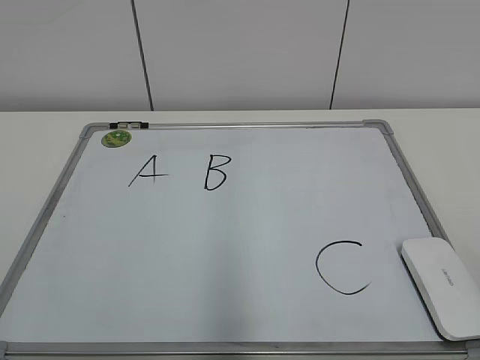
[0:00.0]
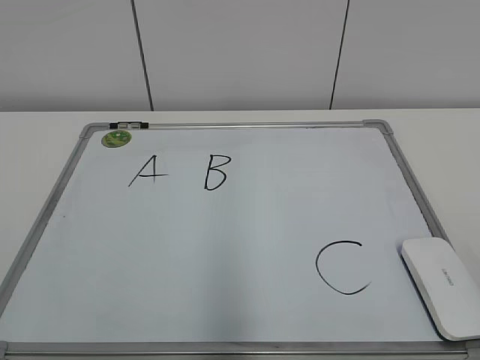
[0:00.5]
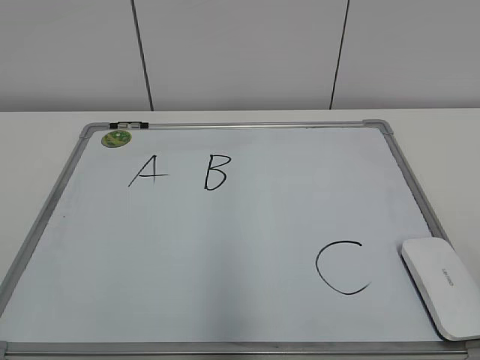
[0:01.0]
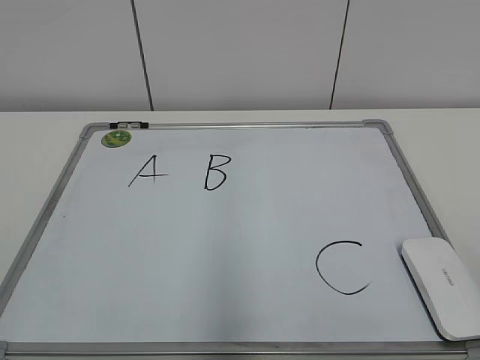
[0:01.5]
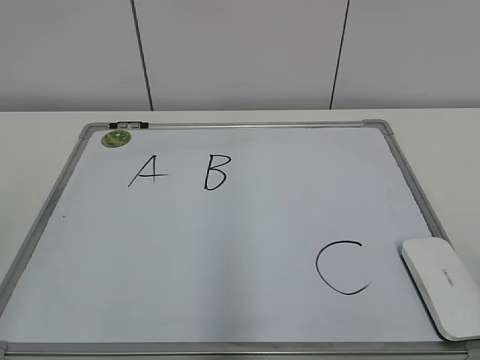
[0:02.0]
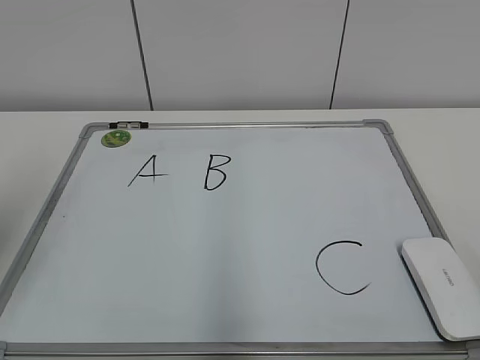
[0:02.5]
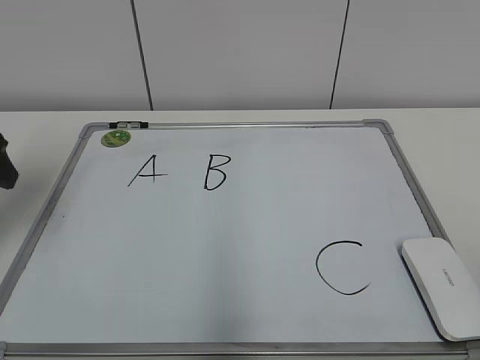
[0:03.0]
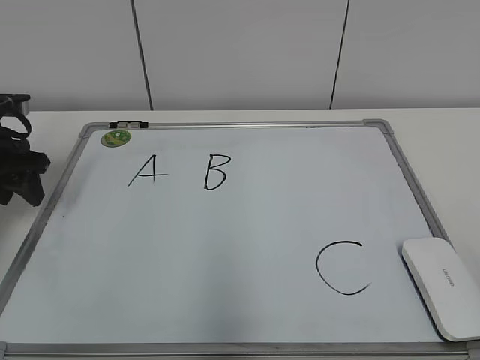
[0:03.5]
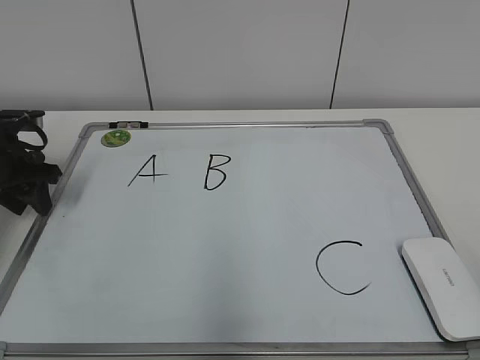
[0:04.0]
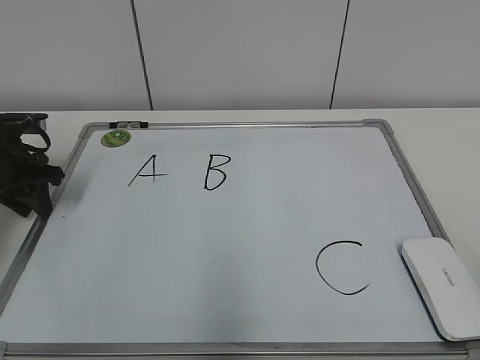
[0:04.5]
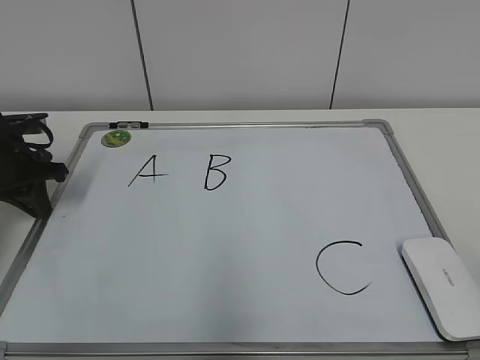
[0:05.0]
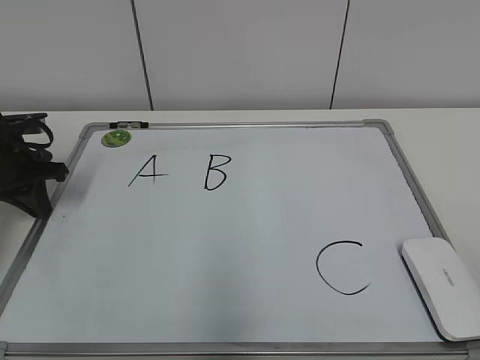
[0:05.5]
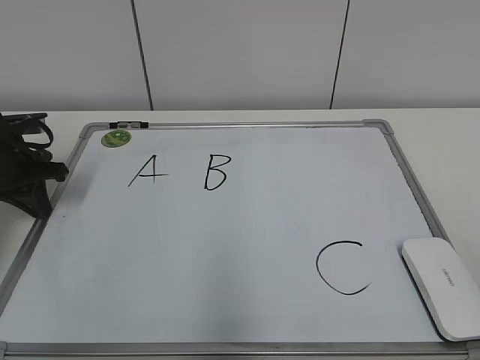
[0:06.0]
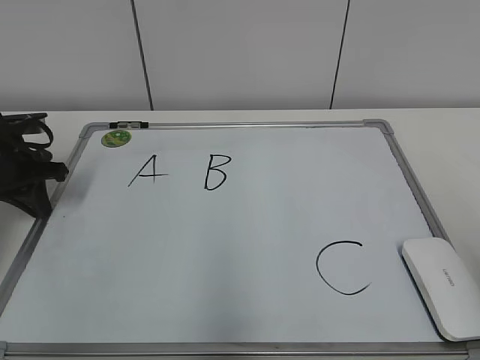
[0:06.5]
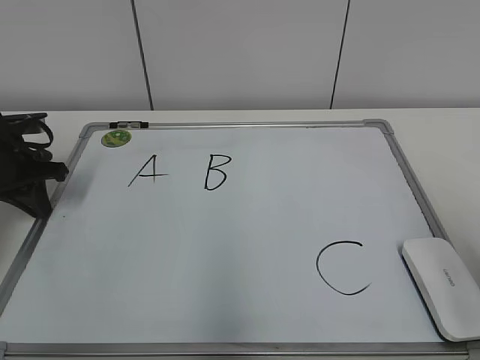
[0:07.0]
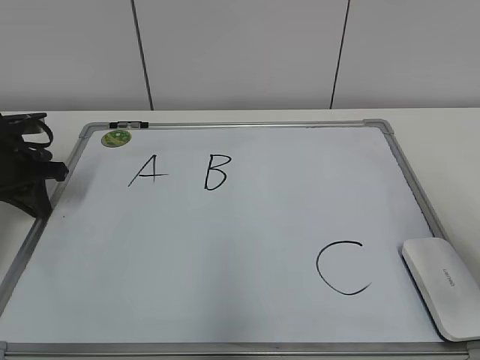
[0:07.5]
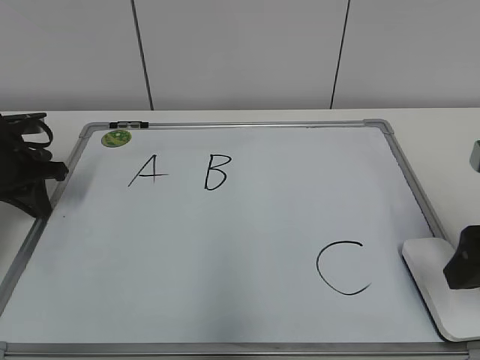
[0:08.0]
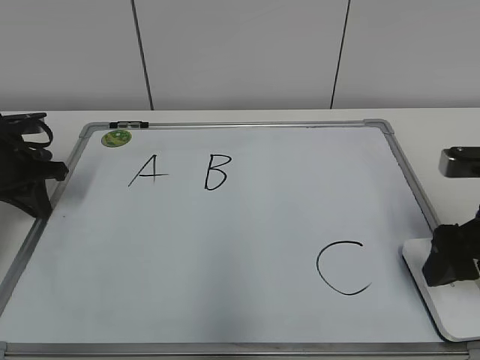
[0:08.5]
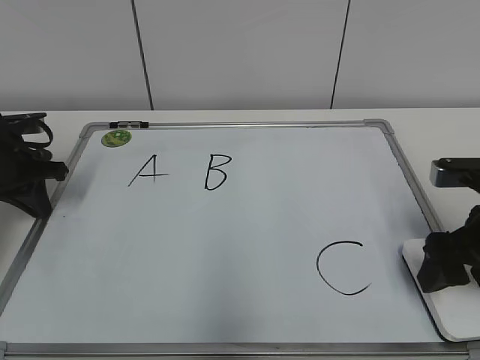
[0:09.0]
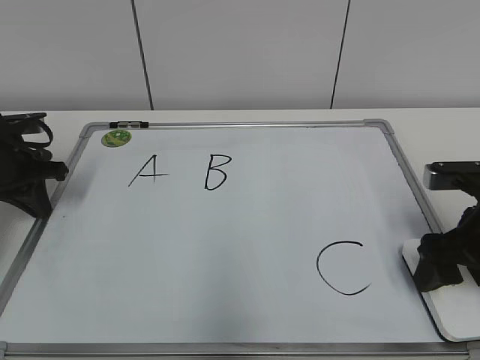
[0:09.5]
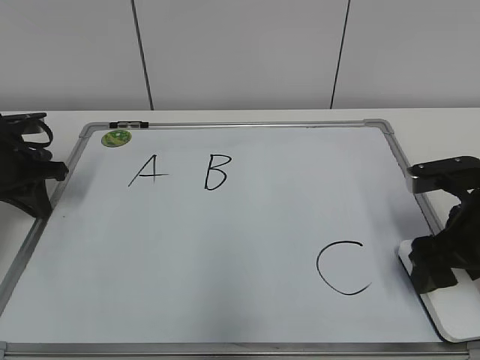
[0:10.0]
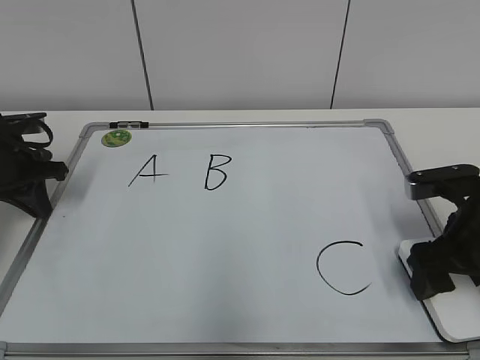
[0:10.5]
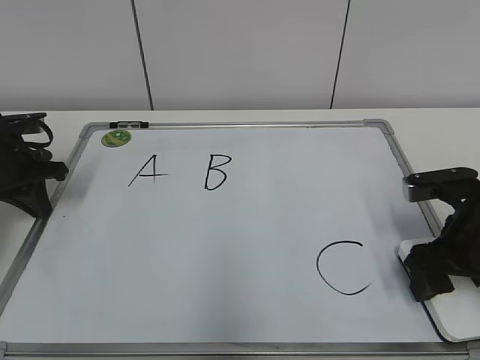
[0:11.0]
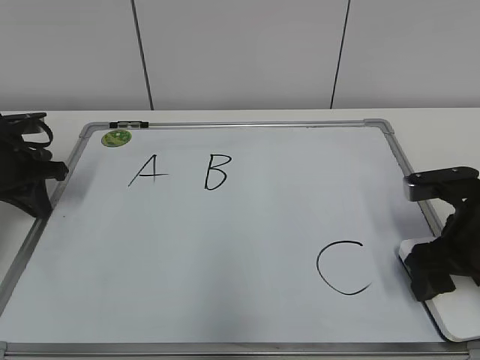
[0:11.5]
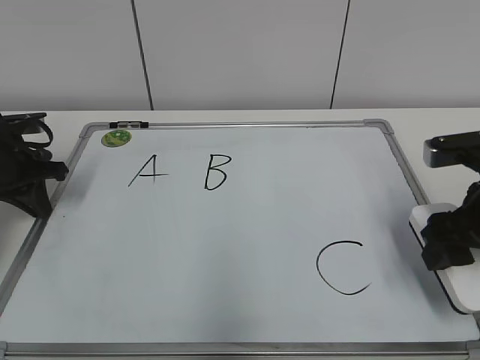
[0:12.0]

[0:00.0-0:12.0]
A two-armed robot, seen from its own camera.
Task of the whole recording: pick up the eraser on the blackboard and erase the letter "B".
Step, 0:00.0 to 0:04.5: Hold the drawing board steady with your left hand.
Step, 0:05.0 to 0:11.0: Grab the eraser with your right hand.
0:02.0 to 0:04.0: The left gripper shifts some 40 cm forward and downward, and closes up.
0:04.0 to 0:06.0: The left gripper closes up.
0:06.0 to 0:08.0: The right gripper heads forward, covering approximately 20 cm, and opens up.
0:08.0 to 0:10.0: The right gripper travels downward and forward by some 10 cm.
0:10.0 to 0:12.0: The right gripper closes its fingers.

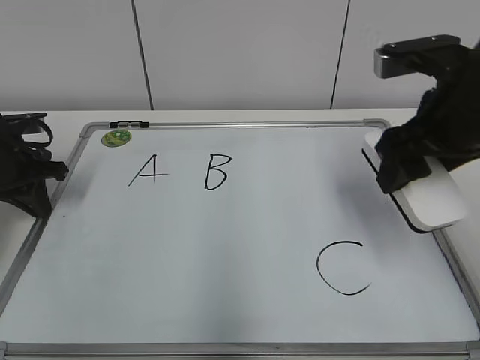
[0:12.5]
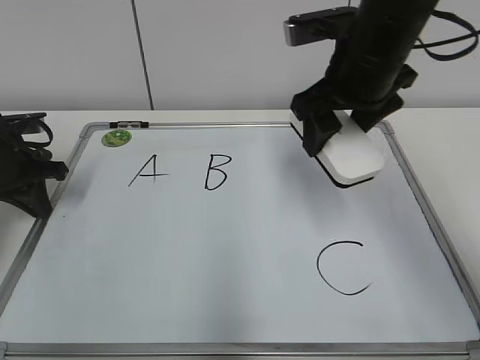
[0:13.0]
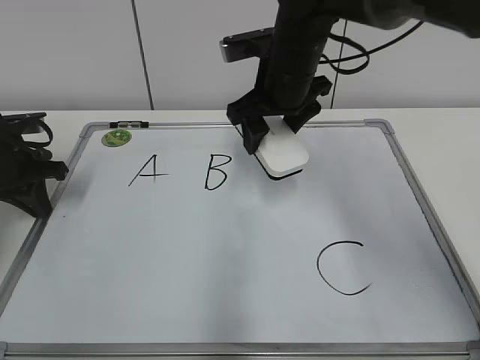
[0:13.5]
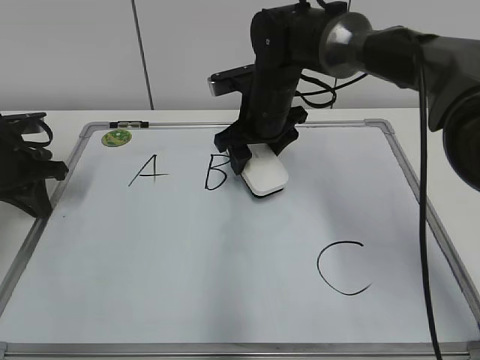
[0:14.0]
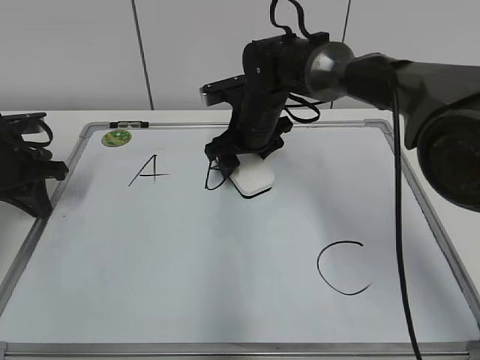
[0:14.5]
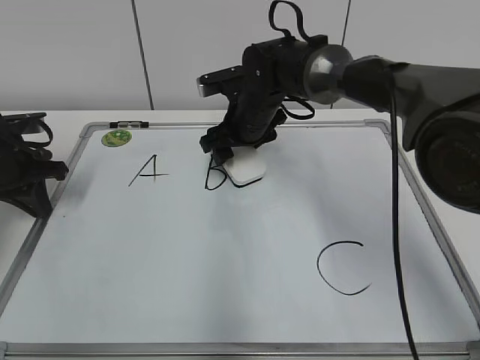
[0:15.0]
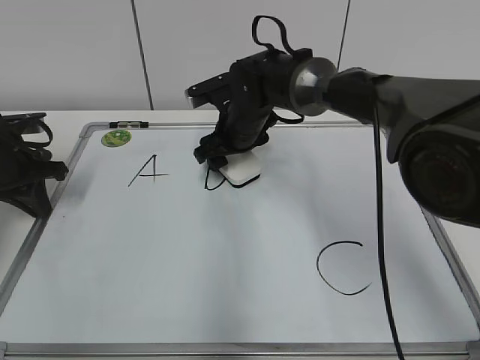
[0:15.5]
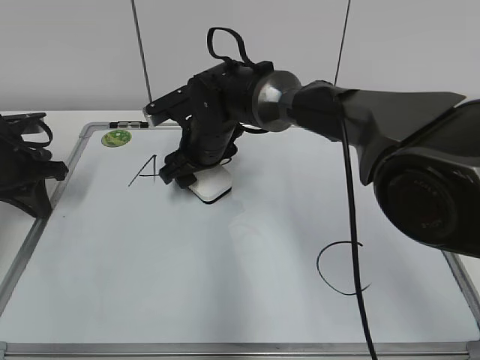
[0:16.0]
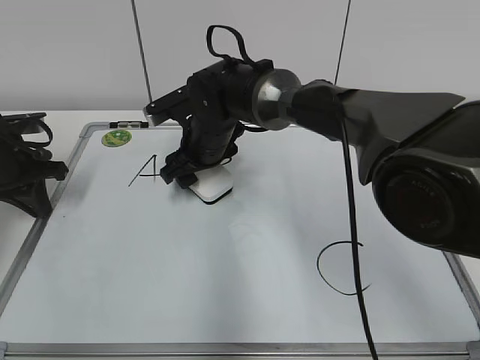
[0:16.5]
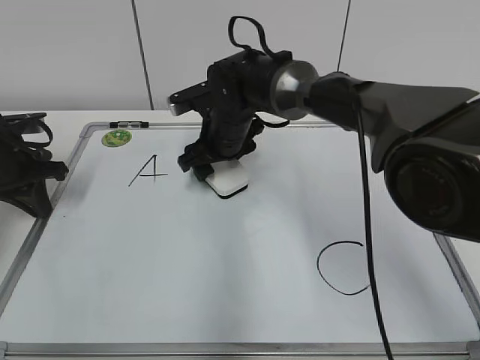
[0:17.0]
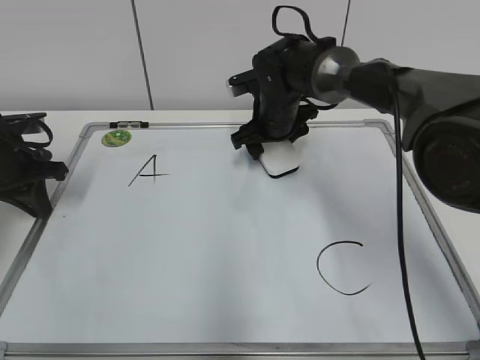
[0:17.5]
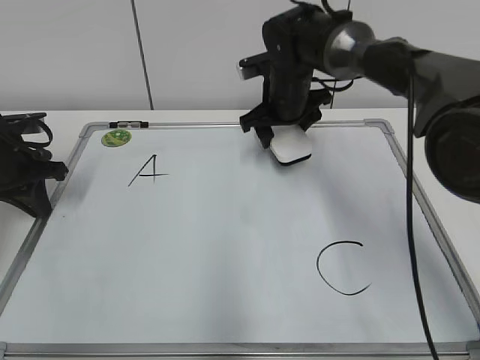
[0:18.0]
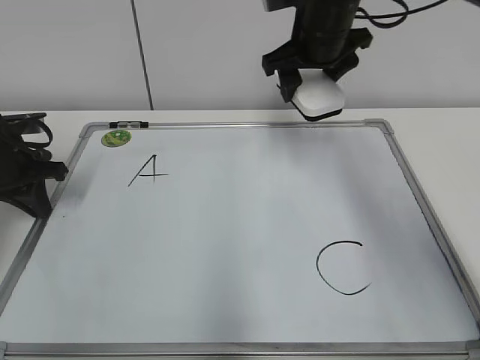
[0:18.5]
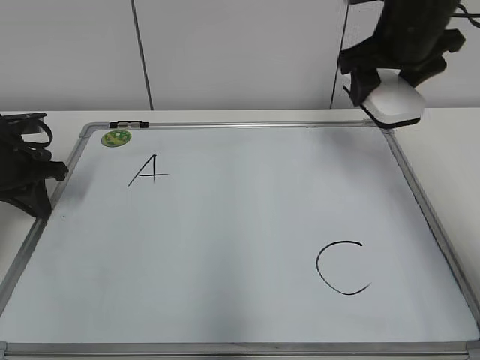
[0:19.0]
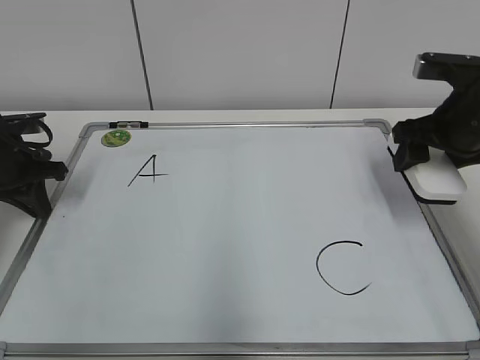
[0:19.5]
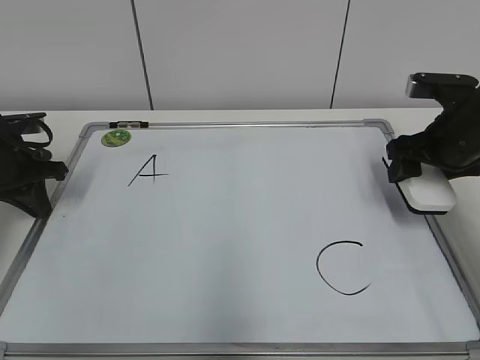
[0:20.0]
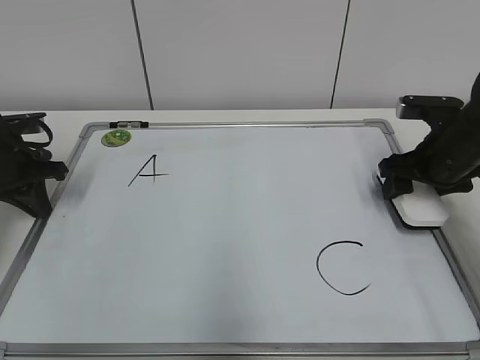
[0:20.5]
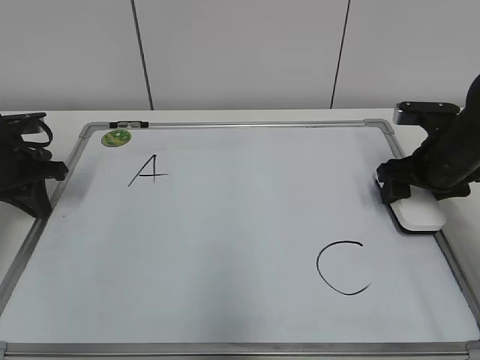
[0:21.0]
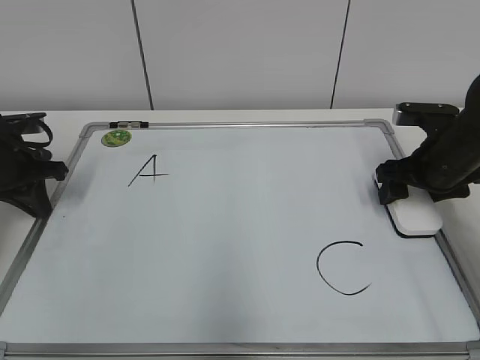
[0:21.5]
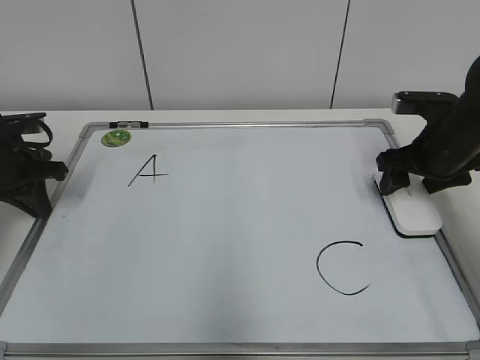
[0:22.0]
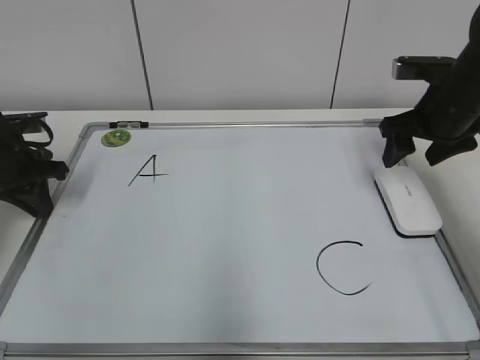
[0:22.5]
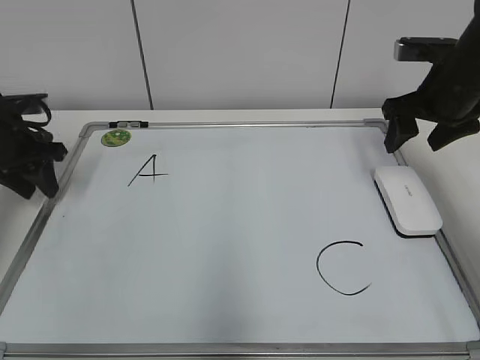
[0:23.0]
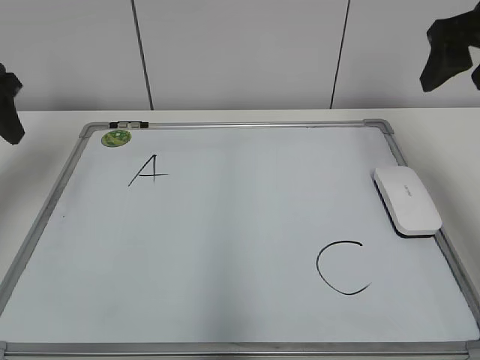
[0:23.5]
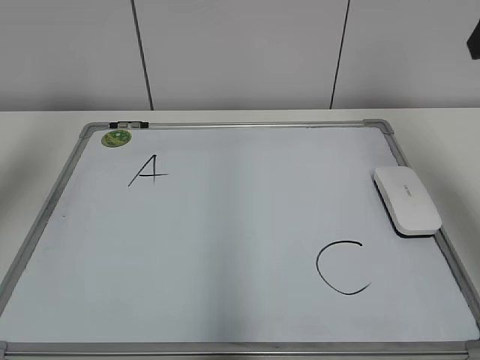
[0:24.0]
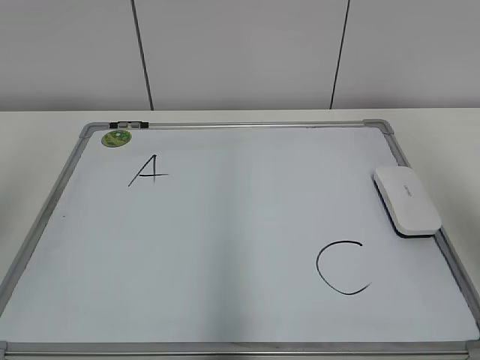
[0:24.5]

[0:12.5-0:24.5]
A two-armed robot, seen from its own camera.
Task of the whole recording: pick up the eraser on the blackboard and erase the letter "B".
Step, 0:12.5 to 0:17.5: Erase the letter B with your right hand.
Step, 0:18.0 to 0:22.0: Put down the eraser with your right hand.
0:12.5 to 0:14.5: The right gripper heads forward, to the left and downward, covering roughly 30 cm.
0:14.5 to 0:16.5: The right gripper goes about 5 cm to the left.
0:16.5 to 0:18.5: The right gripper moves upward and to the right, roughly 20 cm.
0:18.5 to 0:20.5: The right gripper shifts about 20 cm to the right, downward and backward.
0:20.5 to 0:22.5: The right gripper ends up roughly 5 cm from where it was, and opens its fingers.
0:22.5 to 0:24.5: Both grippers travel together upward and backward, roughly 30 cm. The left gripper opens.

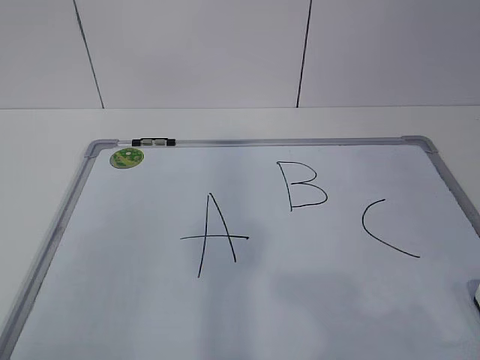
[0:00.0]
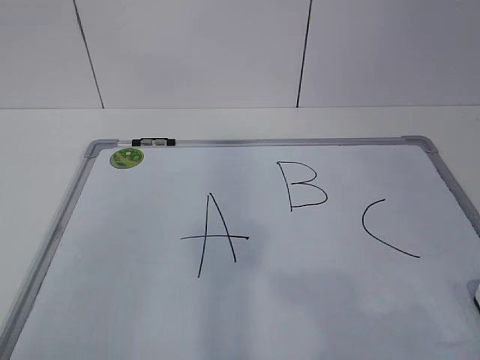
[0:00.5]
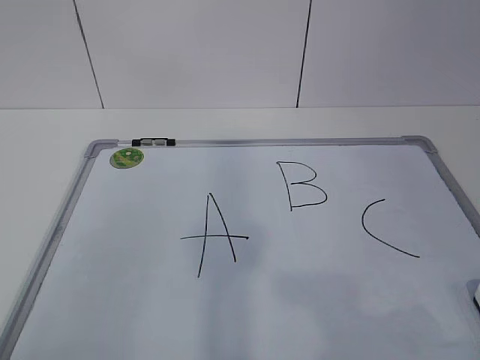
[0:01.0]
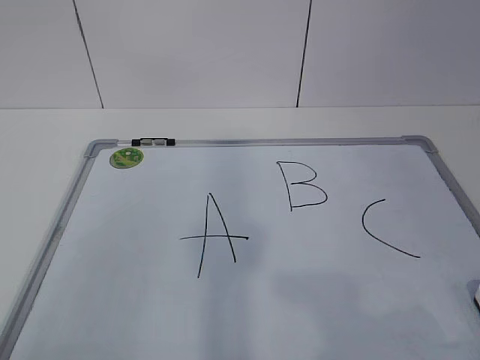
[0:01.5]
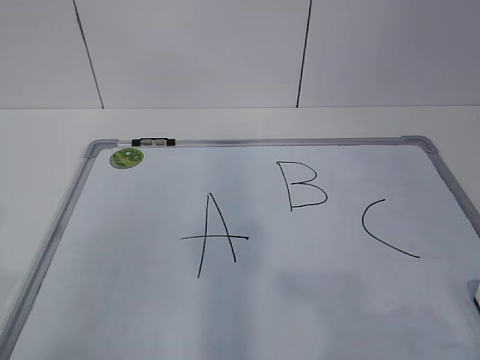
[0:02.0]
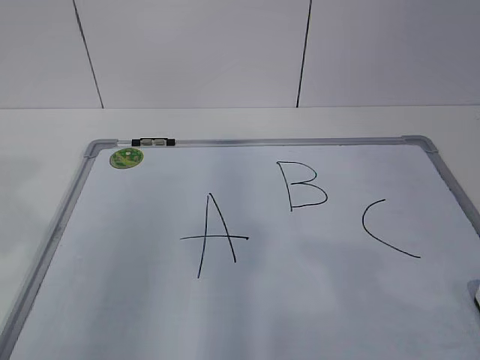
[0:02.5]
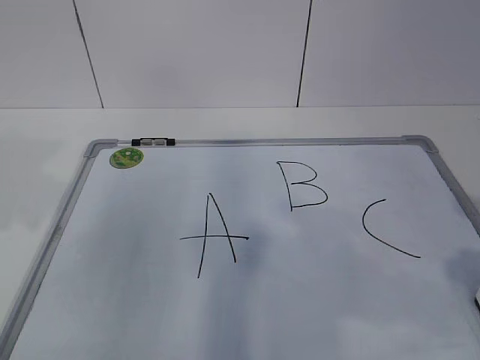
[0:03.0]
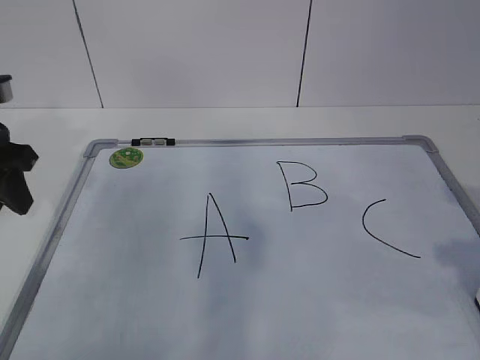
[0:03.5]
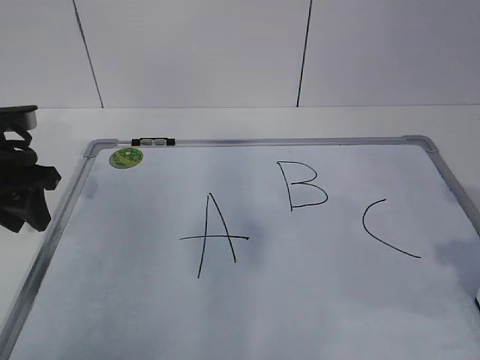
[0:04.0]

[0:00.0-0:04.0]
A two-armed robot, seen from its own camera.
Task of the whole recording: pick up the eraser on the blackboard and erase the letter "B".
0:02.0 to 0:04.0: The left gripper shifts roughly 35 cm forward and downward.
